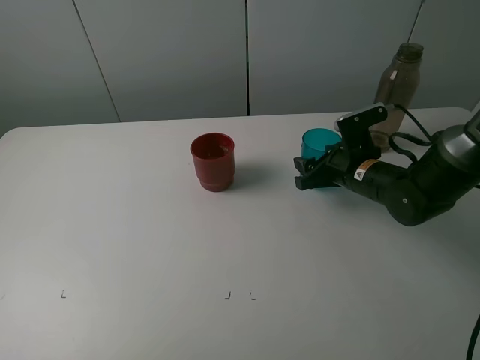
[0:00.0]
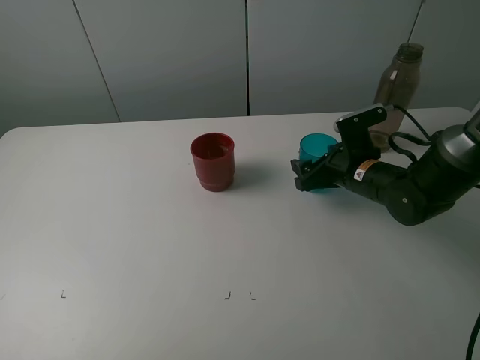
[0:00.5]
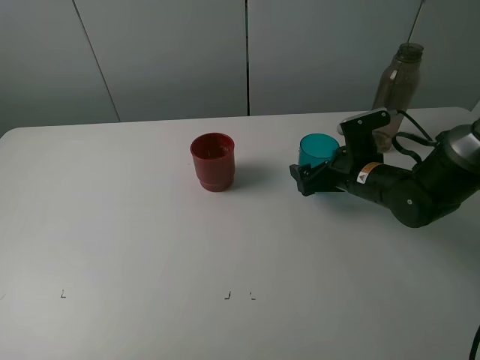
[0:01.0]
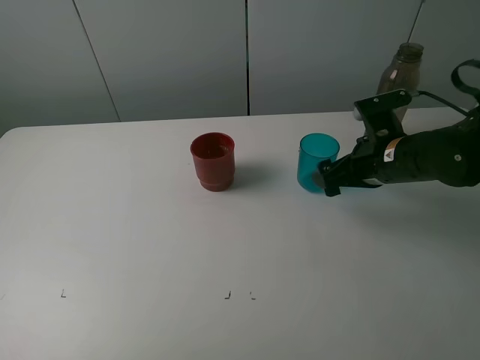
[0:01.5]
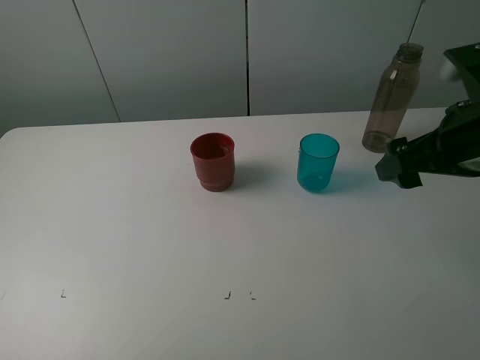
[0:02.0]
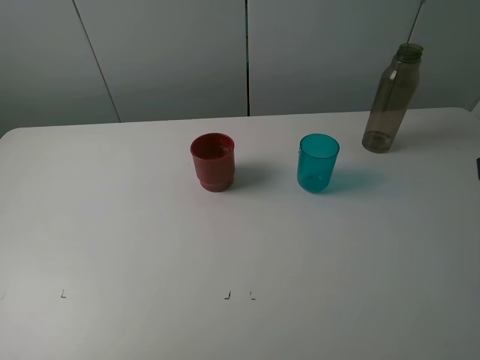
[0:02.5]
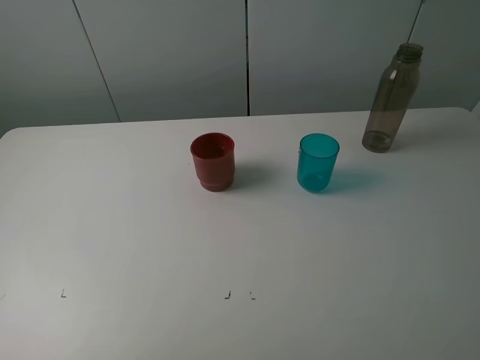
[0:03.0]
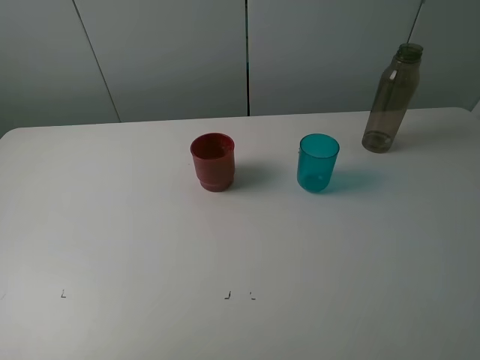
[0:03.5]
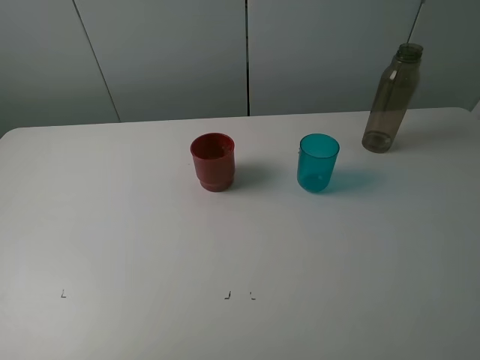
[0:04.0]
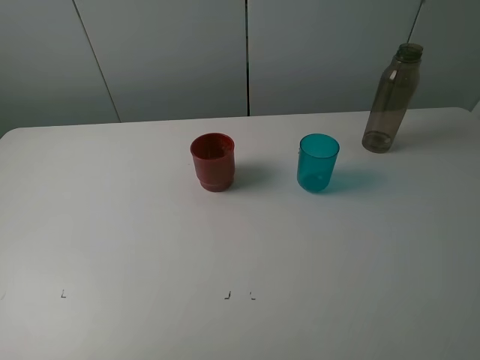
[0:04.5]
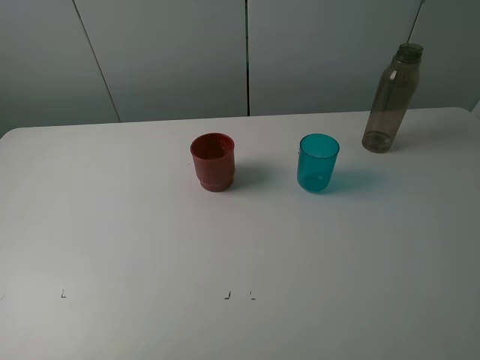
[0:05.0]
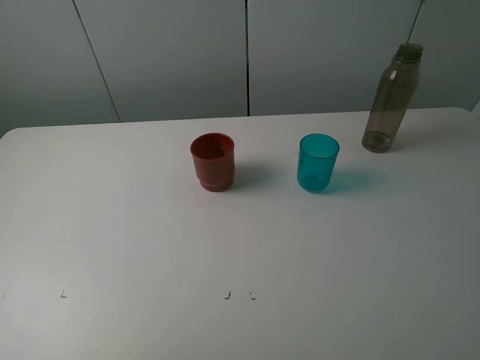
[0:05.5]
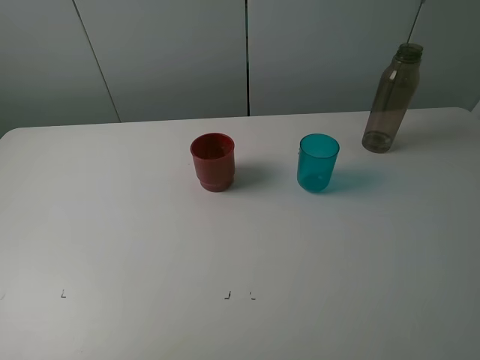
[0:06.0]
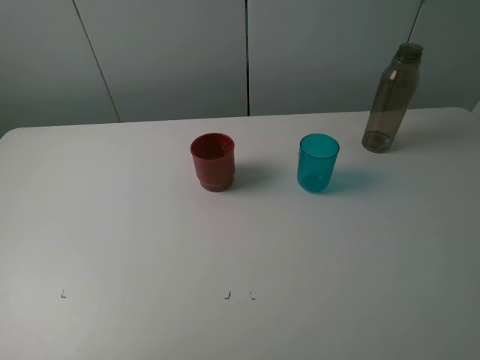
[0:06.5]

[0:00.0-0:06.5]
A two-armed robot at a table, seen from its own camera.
Task of the whole recording: pick up the bottle and pour water into the cup, then pick up the cup containing water and pour it into another cup.
0:00.0 to 0:02.0: The right gripper moves upward and backward, roughly 20 cm, and opens up.
0:02.0 to 0:04.5: The right gripper moves backward, approximately 20 cm.
